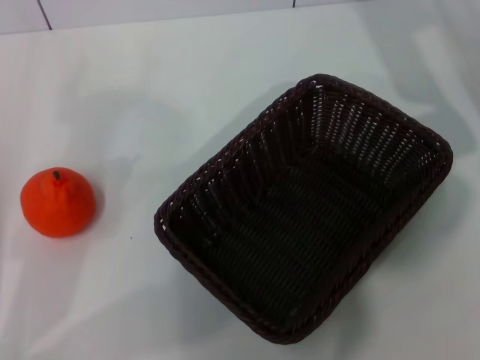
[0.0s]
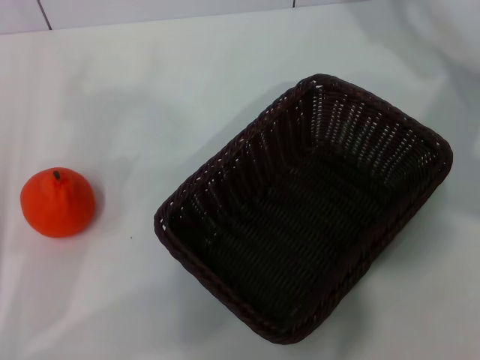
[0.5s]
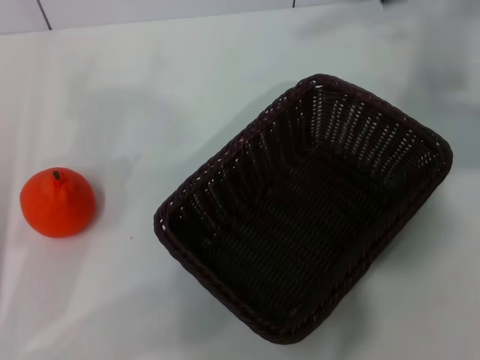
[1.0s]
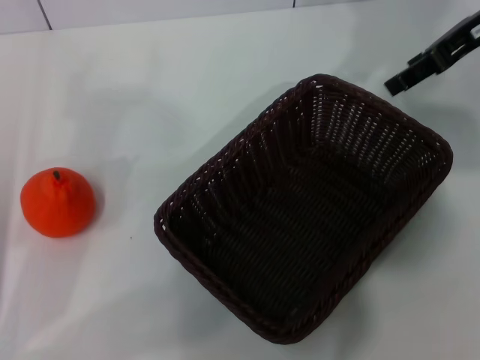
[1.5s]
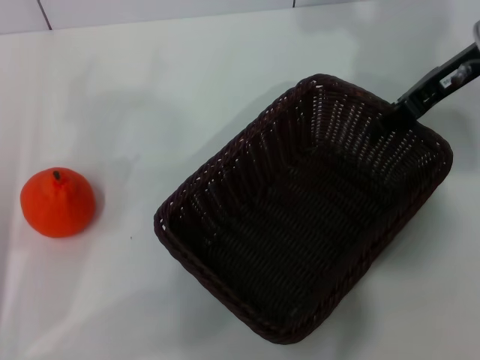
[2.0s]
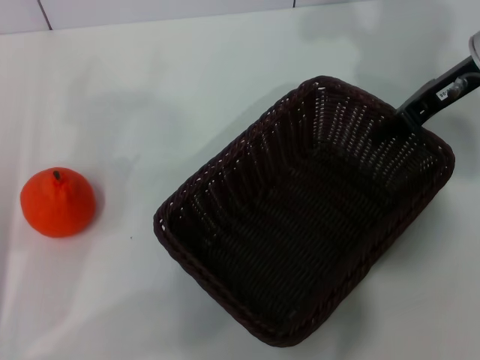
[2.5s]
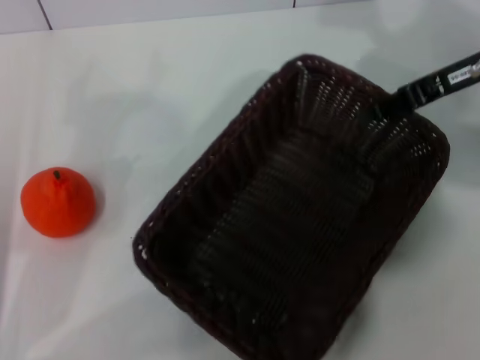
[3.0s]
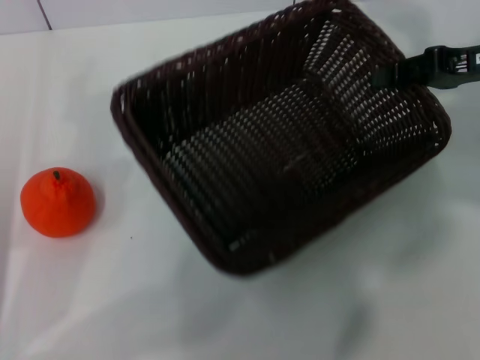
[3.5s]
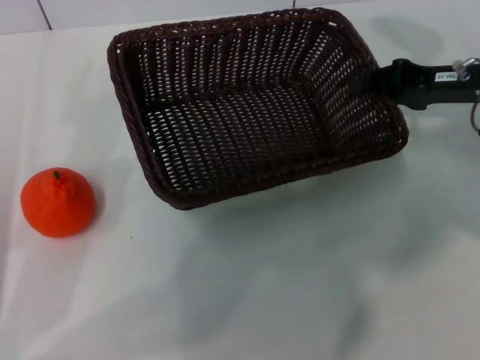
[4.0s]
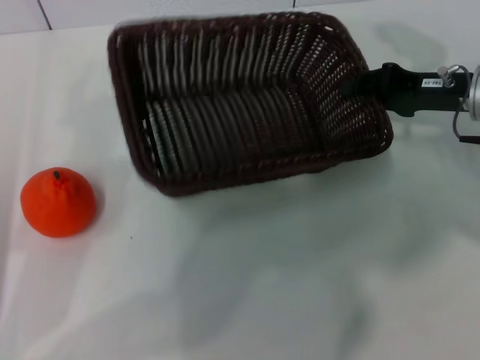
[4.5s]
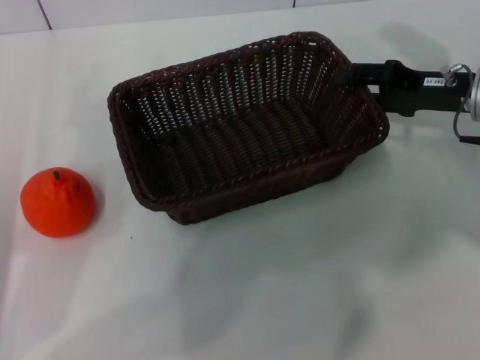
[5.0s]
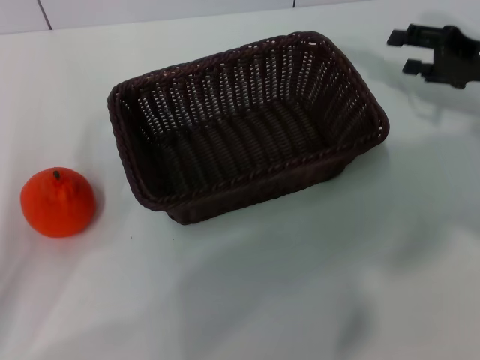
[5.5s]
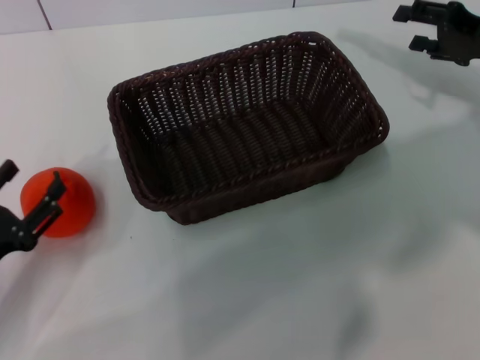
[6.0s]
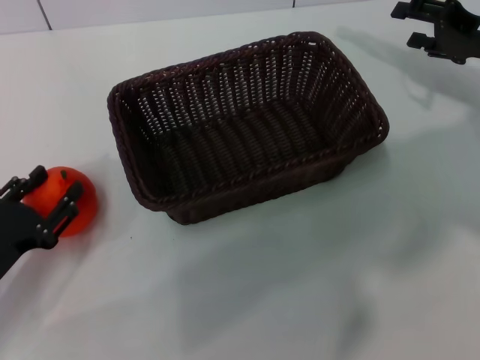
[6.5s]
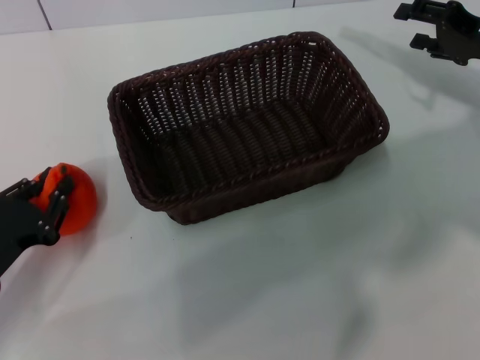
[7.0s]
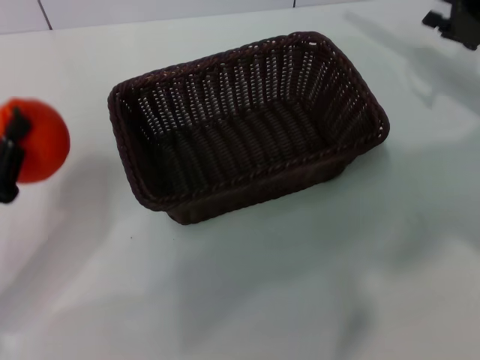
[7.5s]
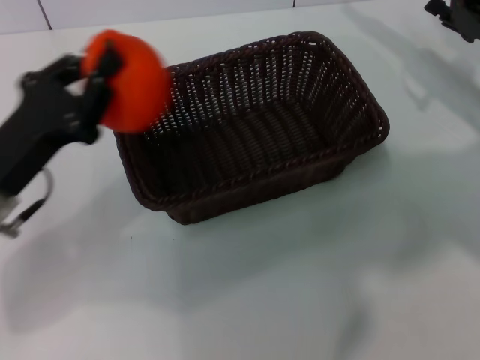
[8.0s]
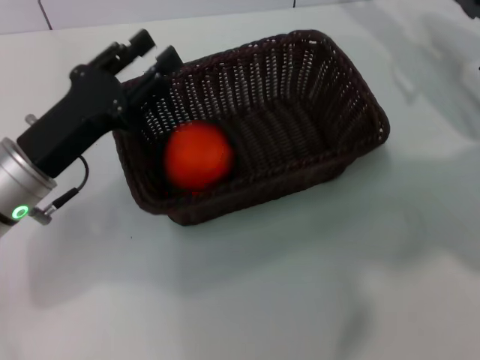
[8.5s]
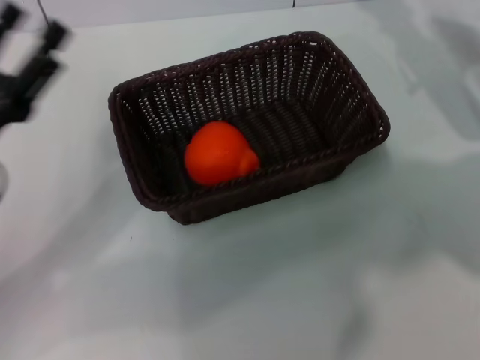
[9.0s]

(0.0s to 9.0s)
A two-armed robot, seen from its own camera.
Task of the whole recording: the right gripper pick up the black basket and place it horizontally in the middle of the table, the left gripper pick up the orange and place it into the black basket.
Step, 0.0s - 2.5s: Pick up the dark basket with the right gripper.
Step, 3.5s - 5.0s: Place the dark basket in the center of view with the right gripper.
Step, 6.0s - 7.0s: Pick up the orange with the left gripper.
Step, 7.5s - 8.5s: Place the orange into the dark basket with the left gripper.
0.0s - 2.0s: The right gripper goes upward and returns, roughly 10 cm each way.
2.0s - 4.5s: The right gripper heads downward, covering about 10 cm, and closes its fingers.
4.5s - 7.0s: The right gripper moves some 5 cm, and opens. Meanwhile the left gripper heads downward, covering approximately 5 cm, and closes.
7.0s - 9.0s: The left gripper shifts some 10 cm upward, goes to the right and returns, about 10 cm each way, and opens.

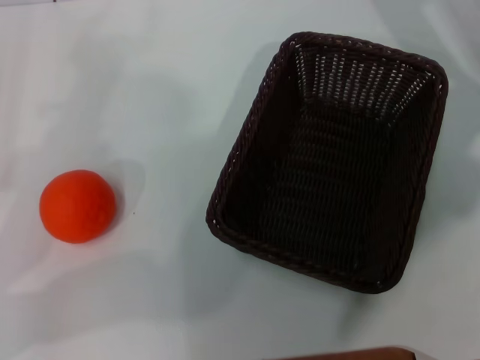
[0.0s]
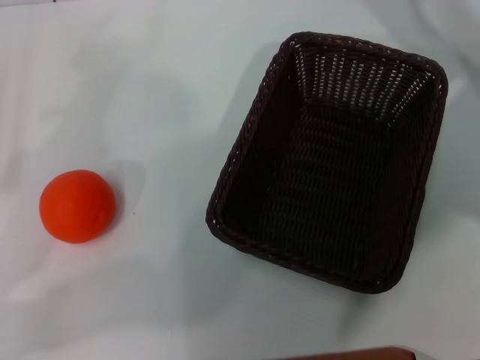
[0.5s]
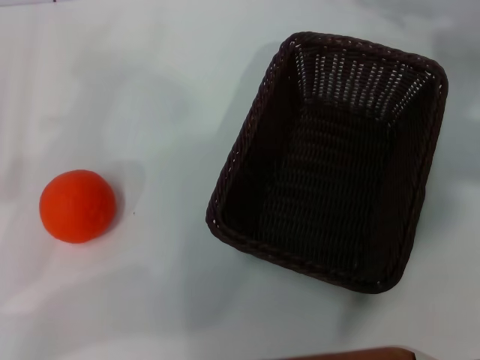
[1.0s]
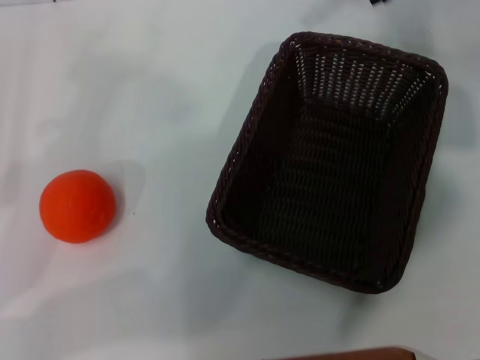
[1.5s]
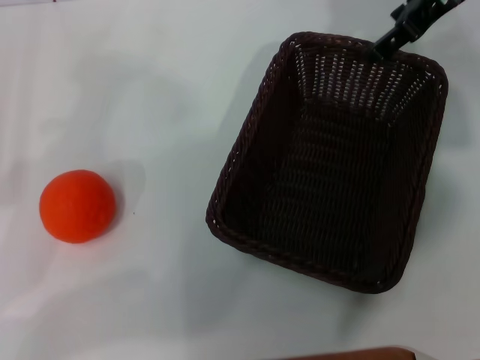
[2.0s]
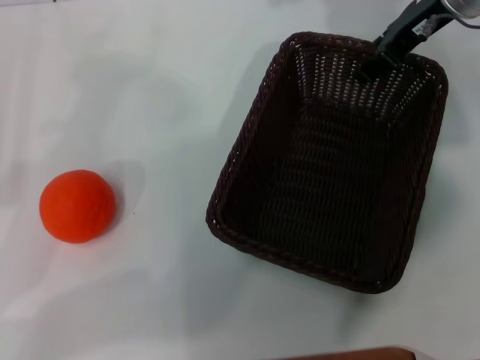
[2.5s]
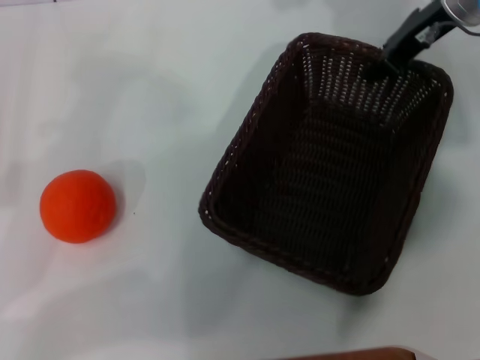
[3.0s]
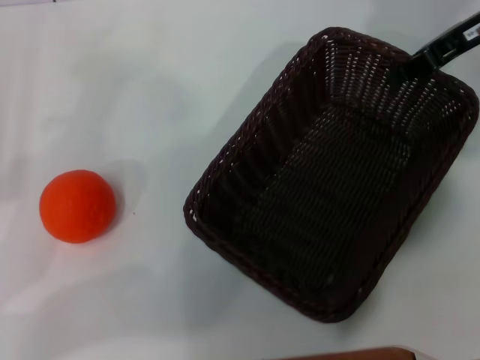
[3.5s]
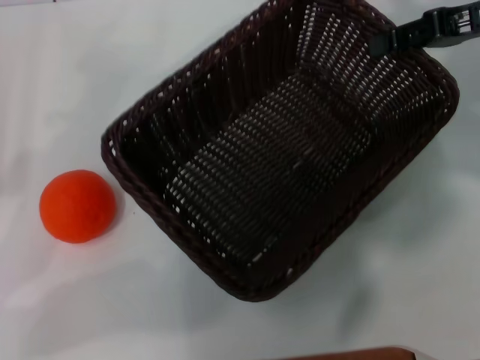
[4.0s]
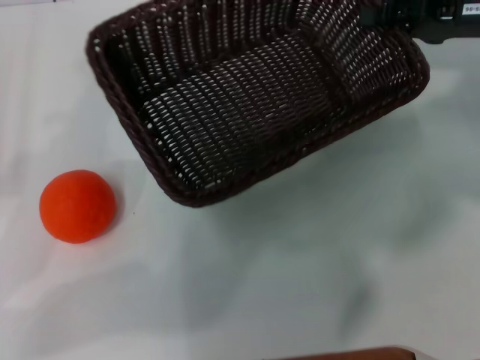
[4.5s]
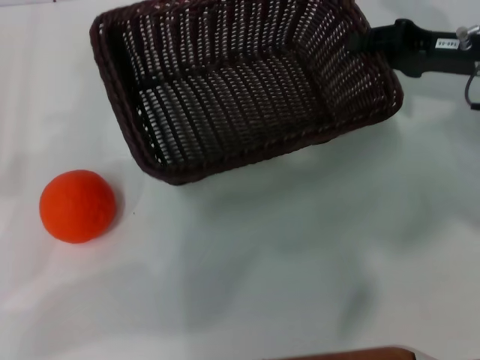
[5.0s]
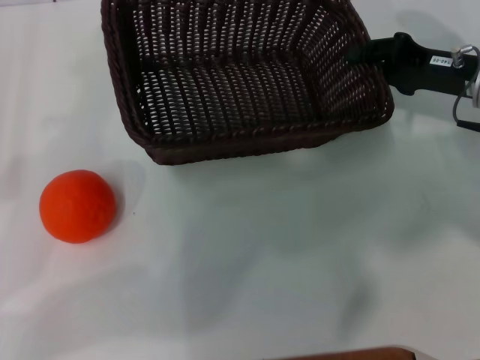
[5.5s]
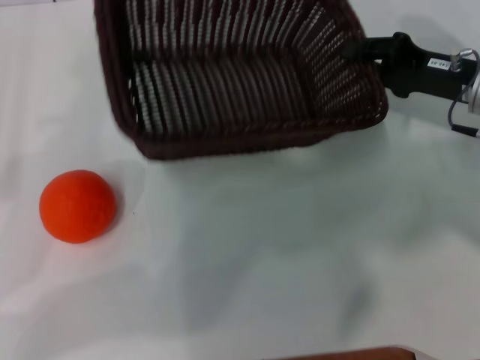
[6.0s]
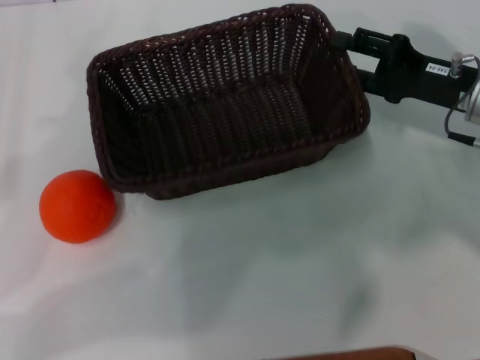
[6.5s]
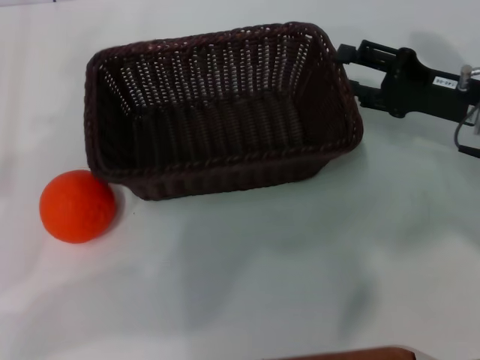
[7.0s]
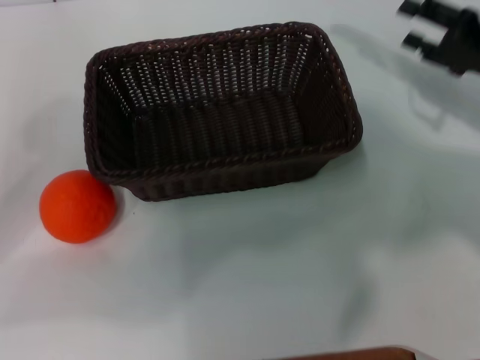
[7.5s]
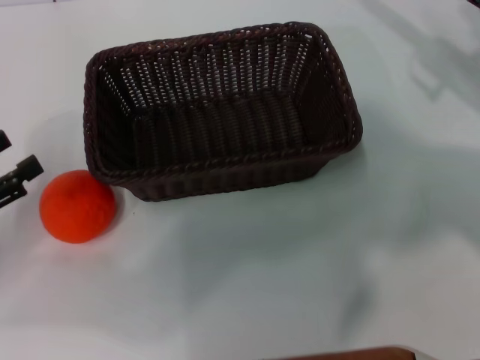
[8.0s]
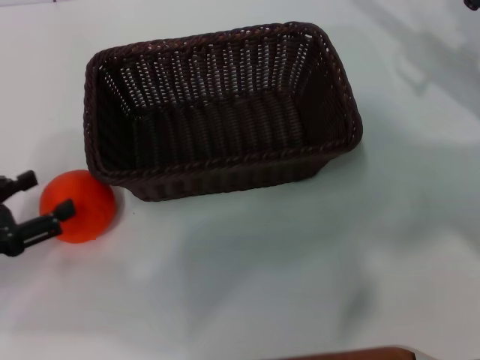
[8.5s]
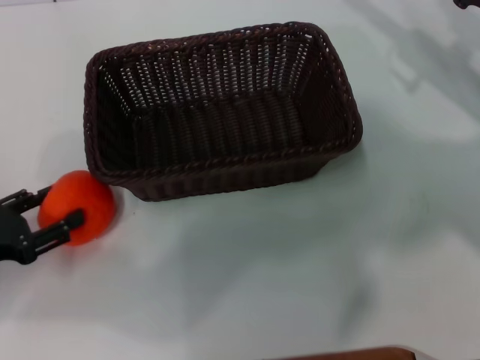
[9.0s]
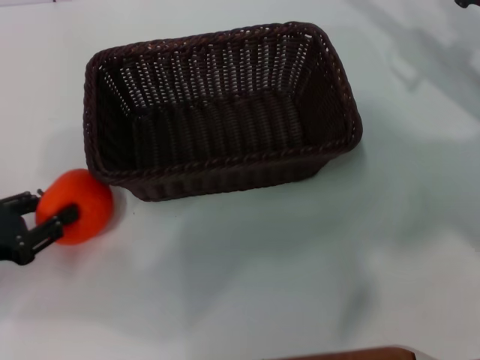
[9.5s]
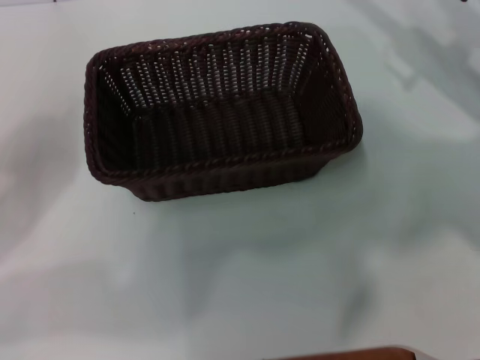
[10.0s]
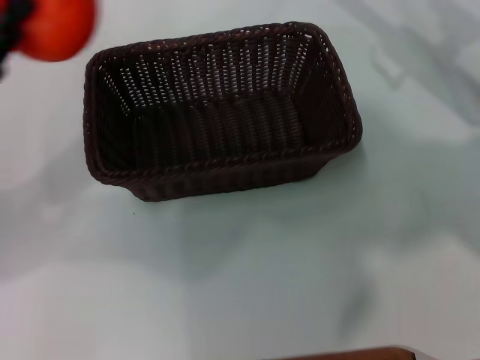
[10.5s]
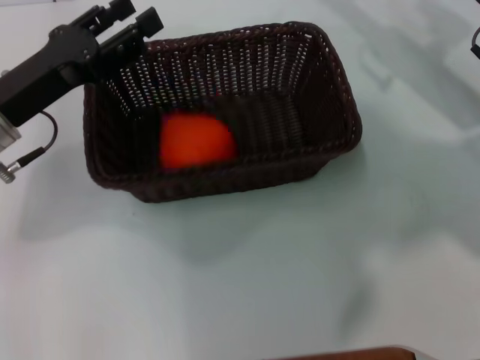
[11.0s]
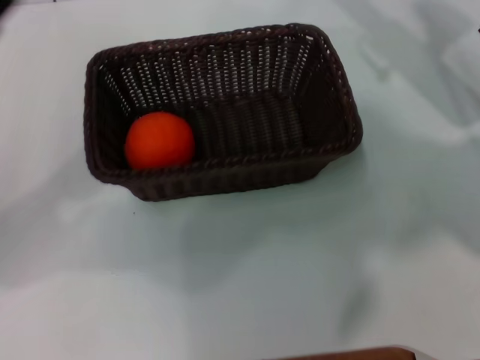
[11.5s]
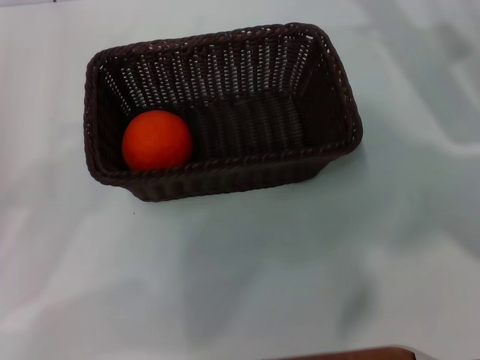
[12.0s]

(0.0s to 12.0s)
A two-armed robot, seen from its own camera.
Task of the whole recording: the right gripper pick up the black basket and place it horizontally in the middle of the table, the left gripper pick up the orange and place it into the black basket.
Step, 0.0s - 3.5s: Pick up the dark basket with the right gripper.
Step, 4.0s - 7.0s: Place the dark basket in the center of view with the right gripper.
Step, 7.5s - 9.5s: Pick up the orange with the left gripper.
Step, 10.0s - 11.0s: Place the orange into the dark basket with the left gripper.
0.0s - 2.0s: The right gripper travels upward by some 5 cm.
2.0s - 4.0s: The right gripper is displaced to the right by some 5 cm, and closes.
4.0s - 6.0s: The right gripper goes some 10 cm downward.
6.0s - 8.0s: The right gripper moves to the right, approximately 5 cm, and opens up.
8.0s - 10.0s: The left gripper closes.
10.0s - 12.0s: The left gripper goes about 5 cm to the right, and opens.
